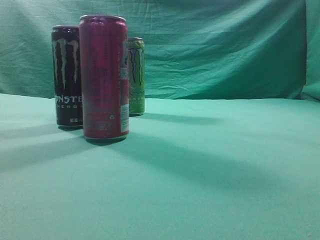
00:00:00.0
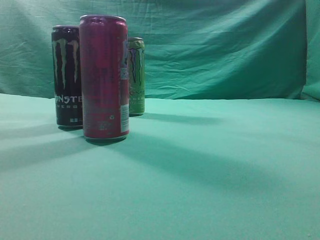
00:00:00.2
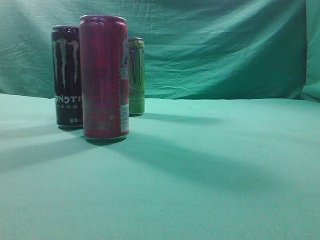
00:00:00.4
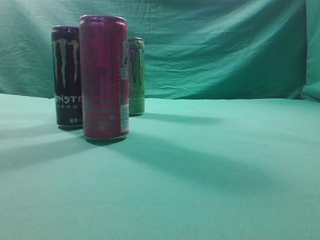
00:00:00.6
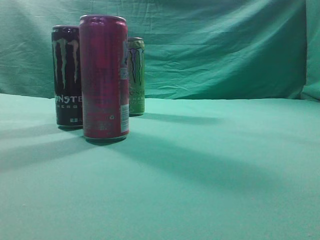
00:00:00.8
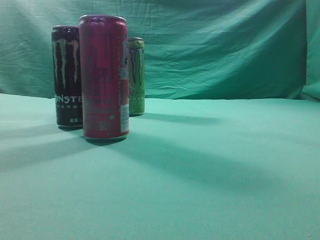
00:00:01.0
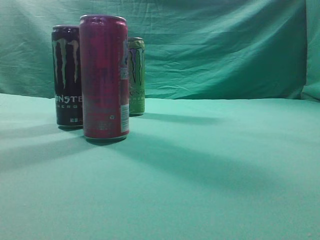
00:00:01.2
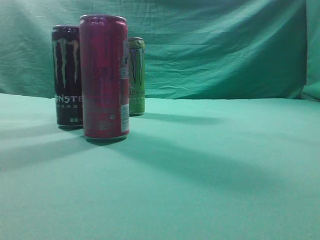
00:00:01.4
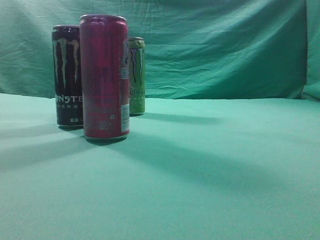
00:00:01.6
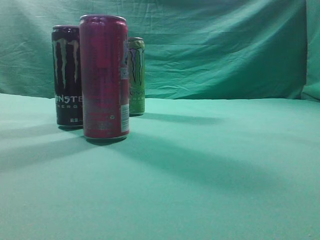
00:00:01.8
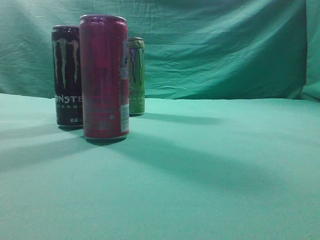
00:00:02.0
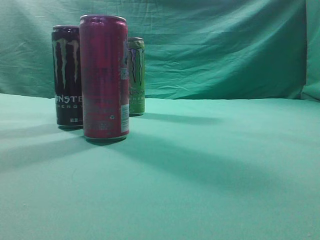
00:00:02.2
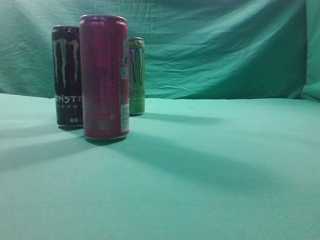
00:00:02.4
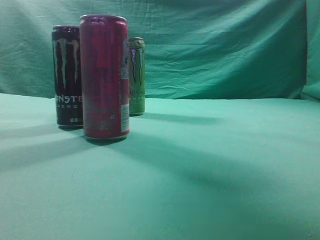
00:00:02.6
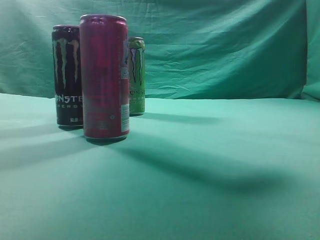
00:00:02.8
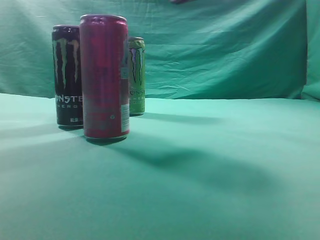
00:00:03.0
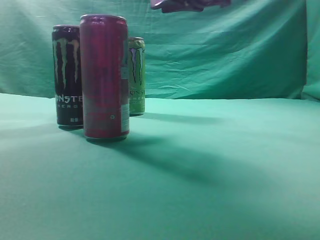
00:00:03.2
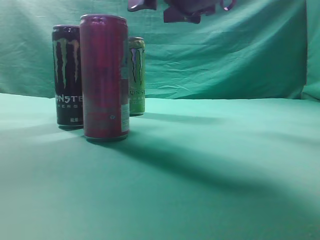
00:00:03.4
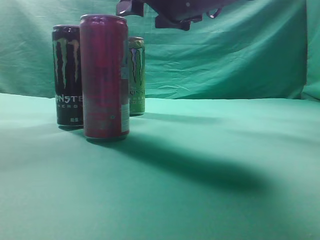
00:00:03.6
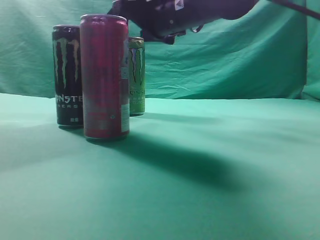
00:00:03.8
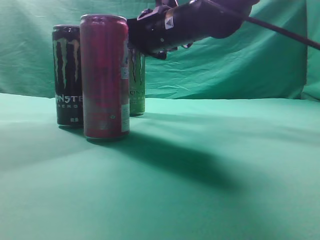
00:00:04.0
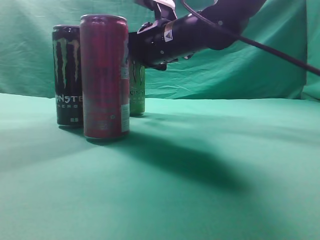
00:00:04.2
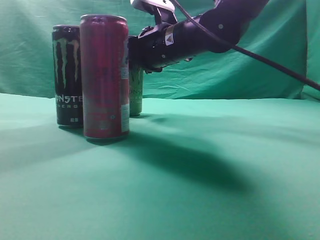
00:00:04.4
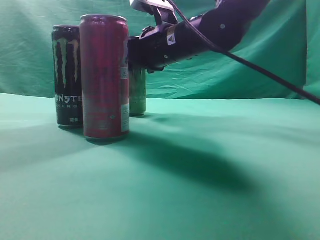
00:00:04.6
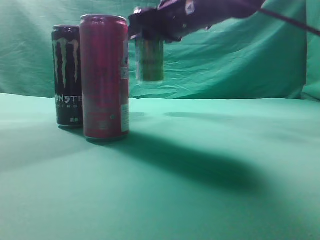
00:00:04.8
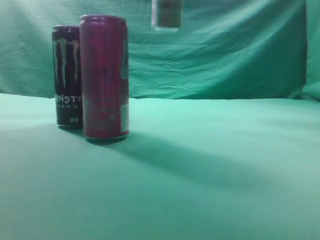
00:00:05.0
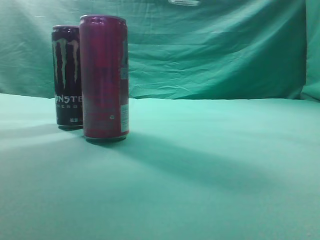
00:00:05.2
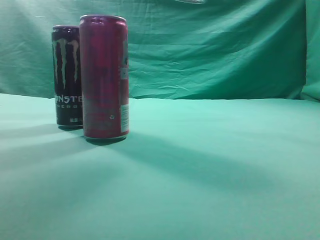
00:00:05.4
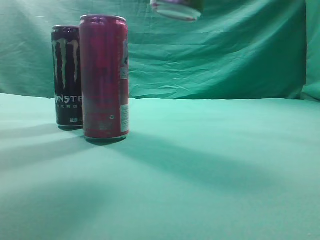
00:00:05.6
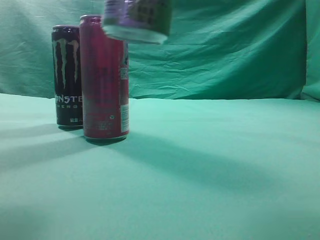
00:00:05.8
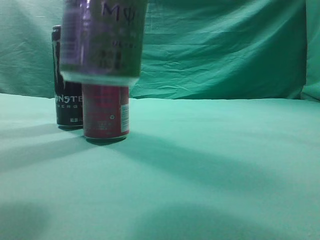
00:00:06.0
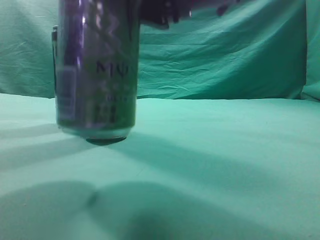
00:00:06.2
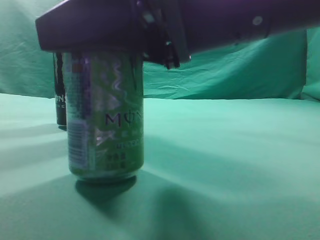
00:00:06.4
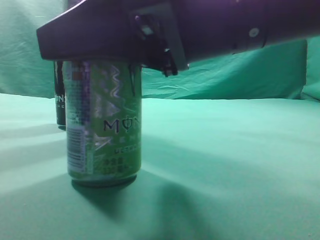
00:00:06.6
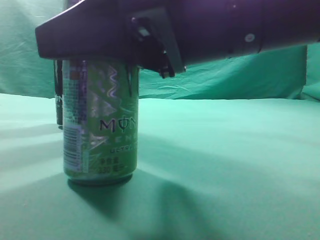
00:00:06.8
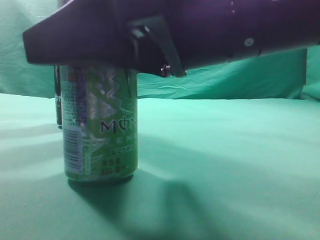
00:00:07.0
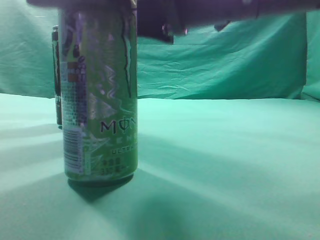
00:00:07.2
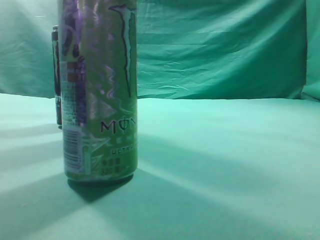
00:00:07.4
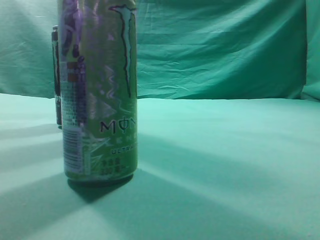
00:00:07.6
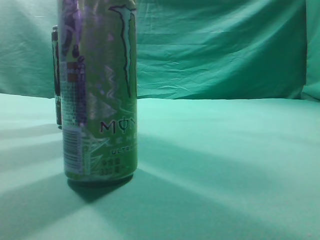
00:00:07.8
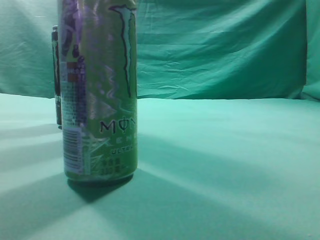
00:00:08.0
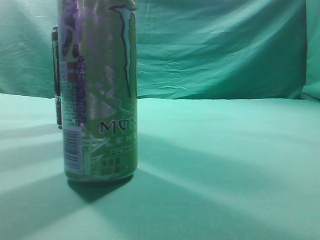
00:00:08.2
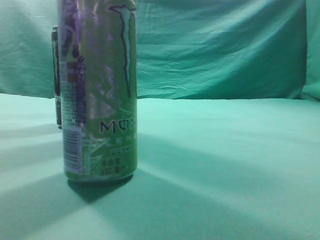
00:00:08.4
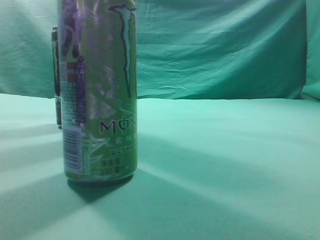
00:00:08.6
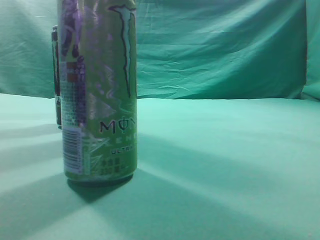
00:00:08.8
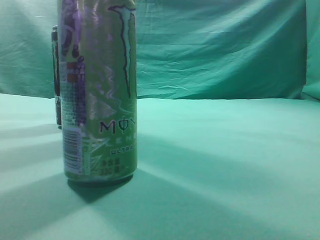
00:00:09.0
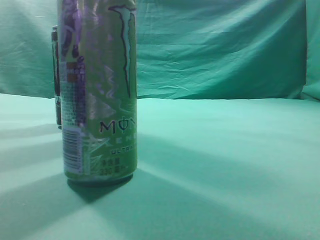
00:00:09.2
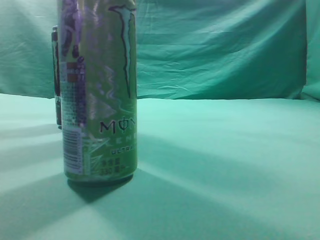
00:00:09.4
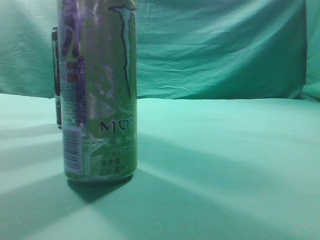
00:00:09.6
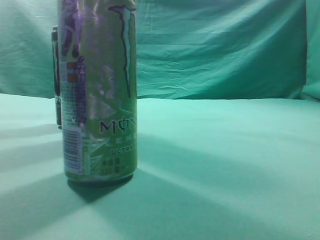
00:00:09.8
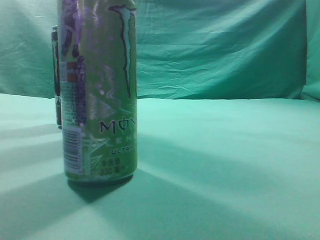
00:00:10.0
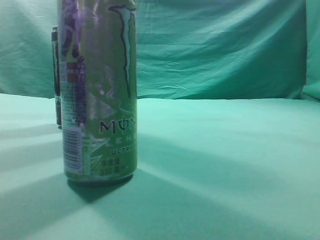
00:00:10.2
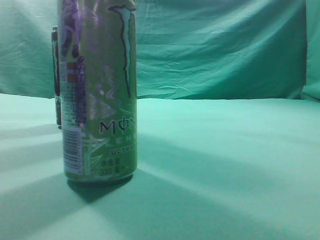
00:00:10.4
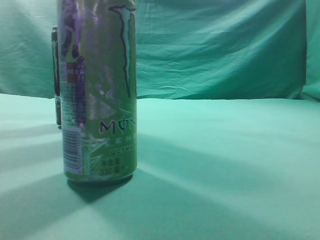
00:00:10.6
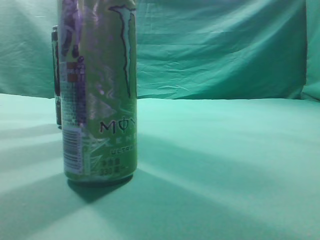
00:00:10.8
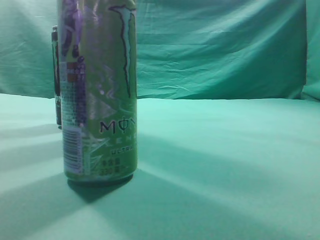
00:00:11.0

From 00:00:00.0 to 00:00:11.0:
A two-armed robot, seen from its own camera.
Task of the whole recording: move one drink among three beverages.
Step, from 00:00:00.0 to 00:00:04.6: Grasp the beverage bottle placed at the back of the desk.
Step, from 00:00:04.8 to 00:00:07.6: Place the beverage bottle to the front of the table.
From 00:00:01.6 to 00:00:03.2: The right gripper shifts some 35 cm forward and to the left, and opens its fingers.
From 00:00:03.2 to 00:00:04.8: The right gripper shifts some 10 cm forward, moves about 10 cm downward and comes back, and opens, then closes again.
From 00:00:04.8 to 00:00:06.2: The right gripper goes some 25 cm backward.
From 00:00:06.2 to 00:00:07.8: The right gripper moves upward and to the right, approximately 15 cm, and closes.
From 00:00:07.8 to 00:00:09.4: The right gripper shifts roughly 15 cm to the right and backward.
